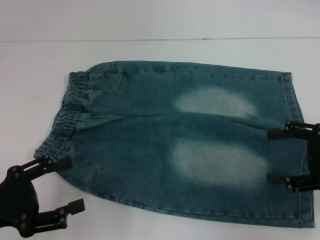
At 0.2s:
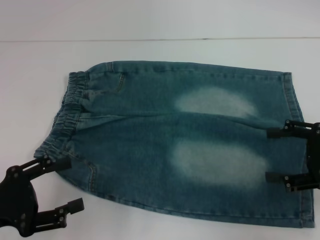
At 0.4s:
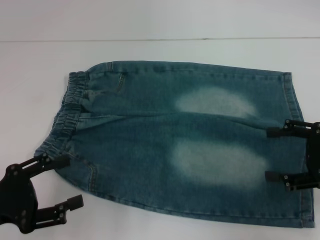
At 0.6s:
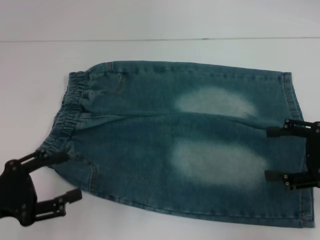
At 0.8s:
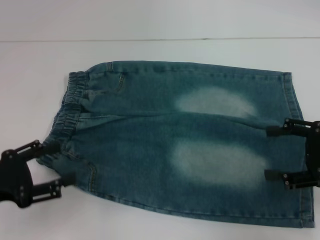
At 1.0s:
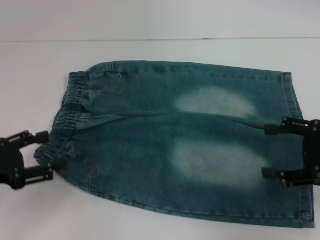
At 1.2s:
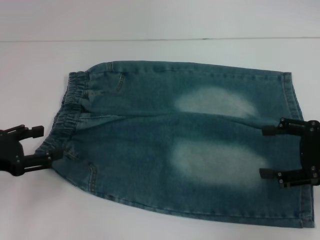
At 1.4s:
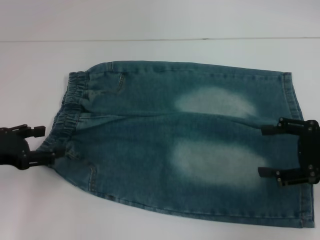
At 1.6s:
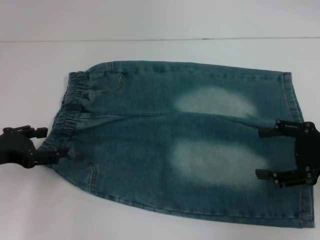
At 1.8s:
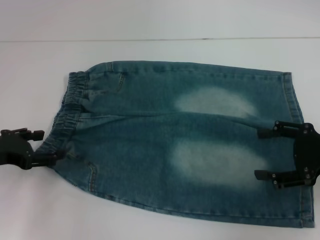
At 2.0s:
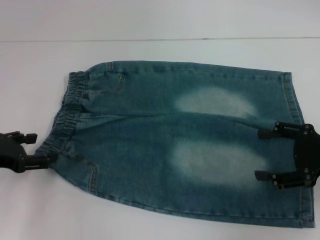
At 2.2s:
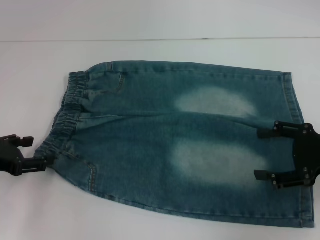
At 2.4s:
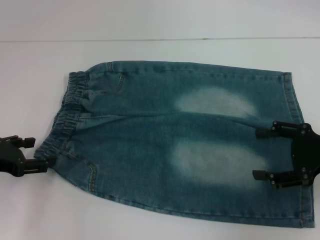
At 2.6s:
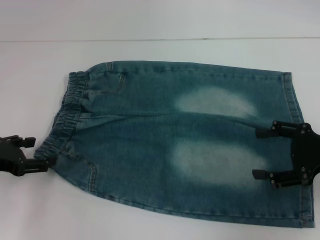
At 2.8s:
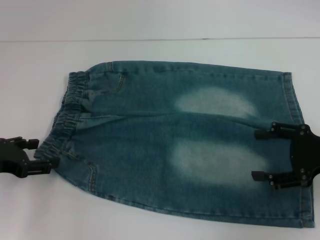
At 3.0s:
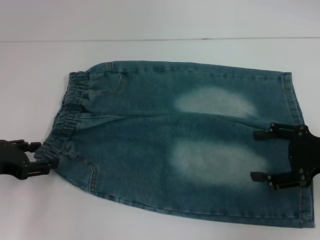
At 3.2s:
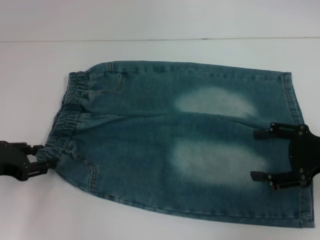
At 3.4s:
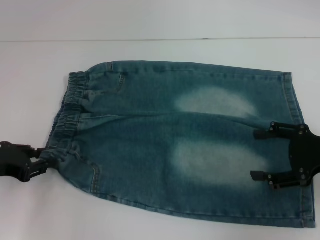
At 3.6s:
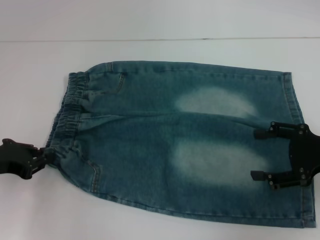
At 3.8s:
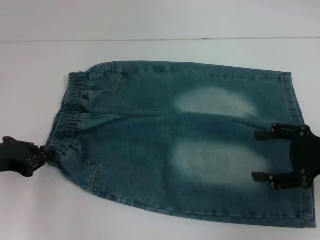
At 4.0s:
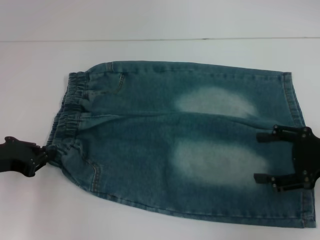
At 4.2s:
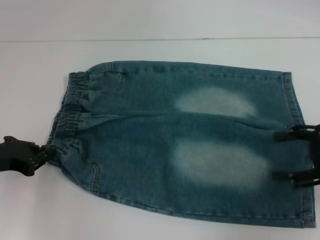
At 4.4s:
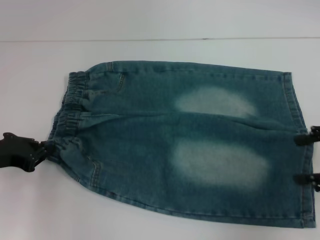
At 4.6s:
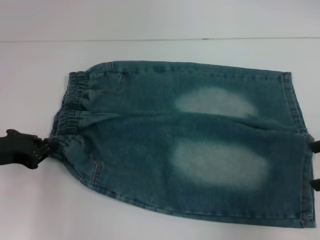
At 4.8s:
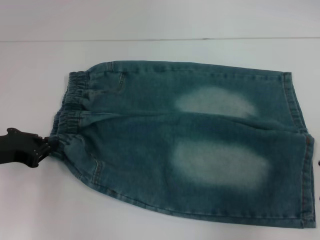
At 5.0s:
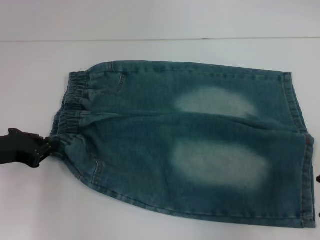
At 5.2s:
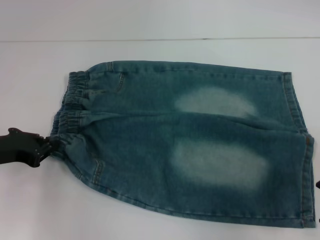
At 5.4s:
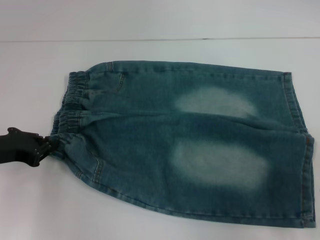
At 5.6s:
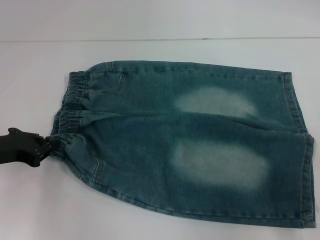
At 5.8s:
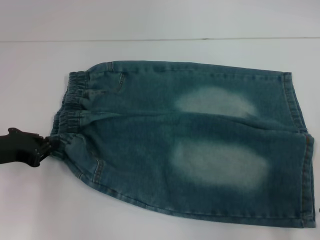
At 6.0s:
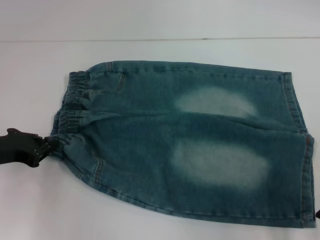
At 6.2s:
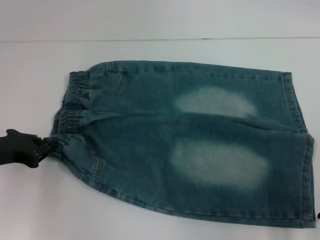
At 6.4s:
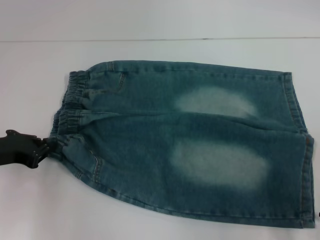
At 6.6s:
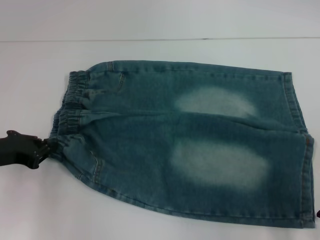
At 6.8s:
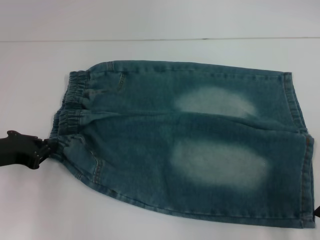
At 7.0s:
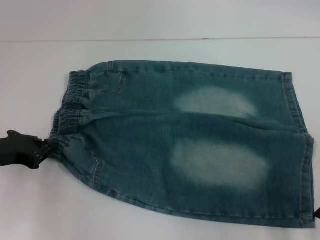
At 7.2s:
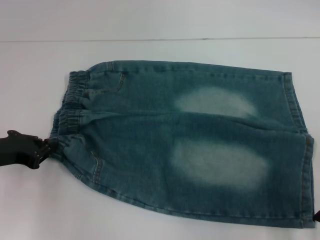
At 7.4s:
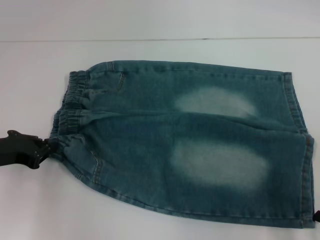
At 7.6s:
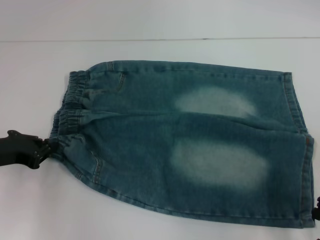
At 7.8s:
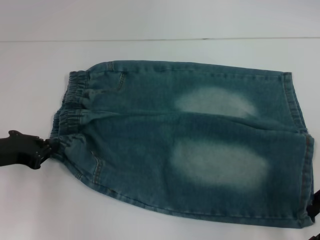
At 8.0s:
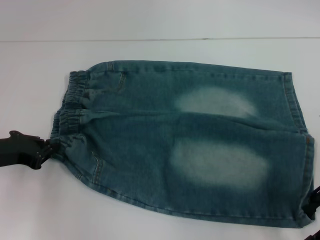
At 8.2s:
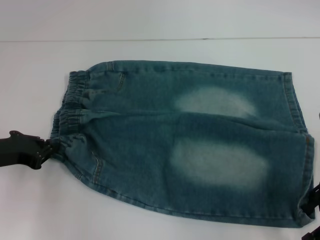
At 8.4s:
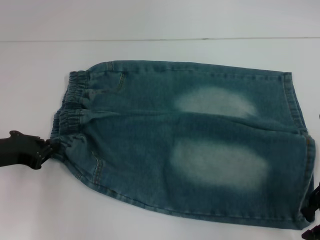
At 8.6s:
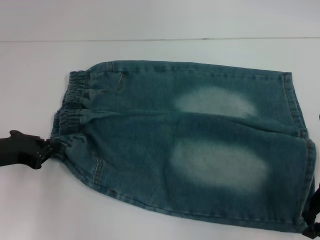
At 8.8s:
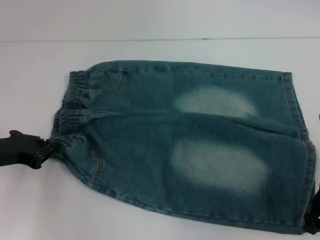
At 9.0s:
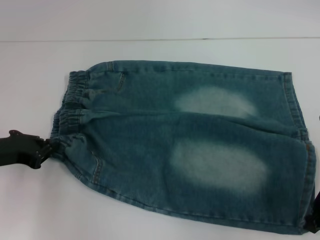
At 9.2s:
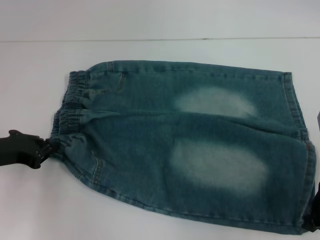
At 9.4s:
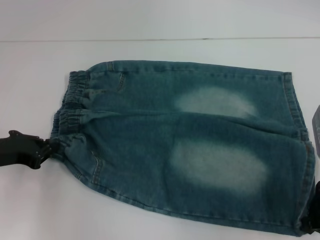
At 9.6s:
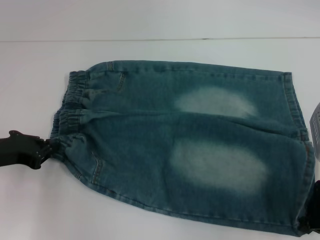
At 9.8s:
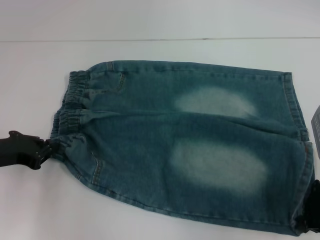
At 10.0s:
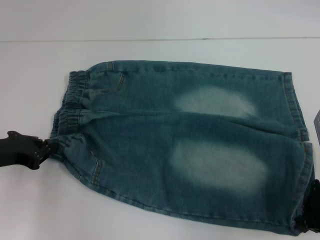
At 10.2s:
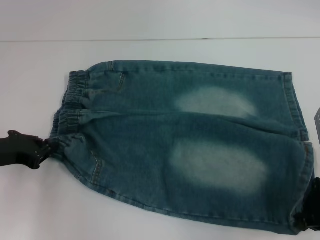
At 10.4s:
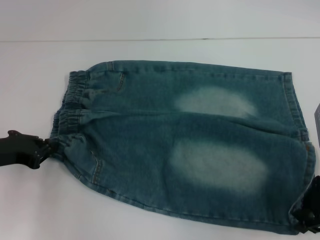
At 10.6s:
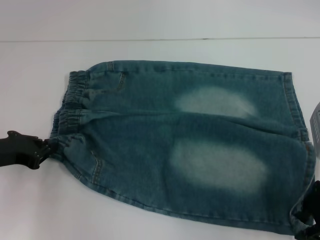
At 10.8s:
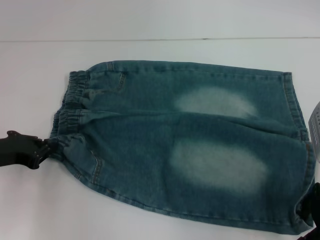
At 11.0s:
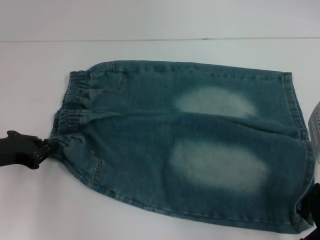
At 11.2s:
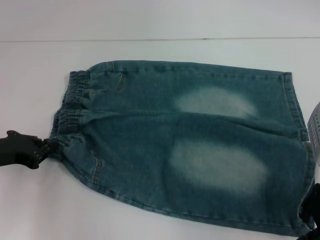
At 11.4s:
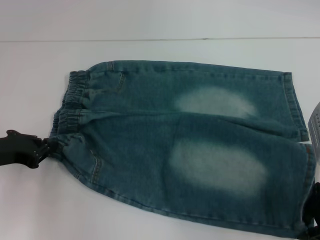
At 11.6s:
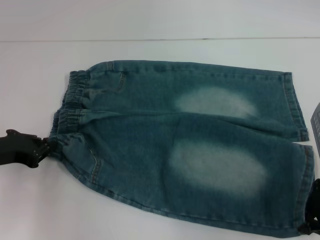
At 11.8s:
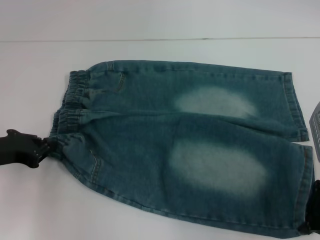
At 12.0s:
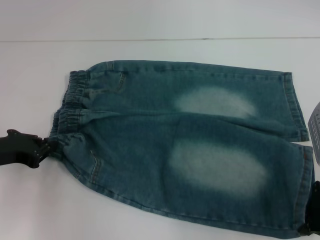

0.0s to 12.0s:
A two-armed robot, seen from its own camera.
Step, 0.0s to 4.4s: Grab the lower left pant leg with your left hand.
Step, 4.6s to 11.8s: Hold the lower right waistband with your right hand.
0.0s to 1.6s: The left gripper moves forward, some 10 cm.
1.6s to 3.0s: The grippers move only a little.
3.0s to 4.4s: The right gripper shifts by roughly 5 cm; the left gripper closes its fingers.
4.4s to 6.0s: The right gripper heads to the left, covering about 5 cm.
6.0s to 7.6s: Neither gripper changes place.
7.6s to 9.0s: The right gripper closes.
9.0s to 10.4s: Both grippers stay put.
10.4s to 12.0s: The right gripper opens and closes again.

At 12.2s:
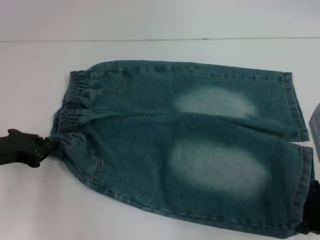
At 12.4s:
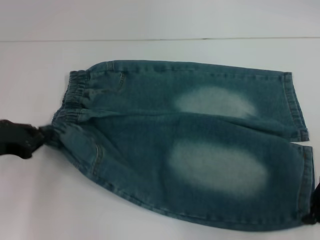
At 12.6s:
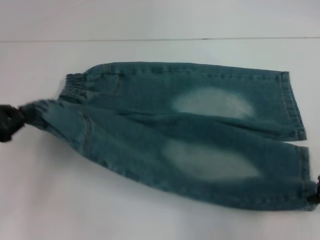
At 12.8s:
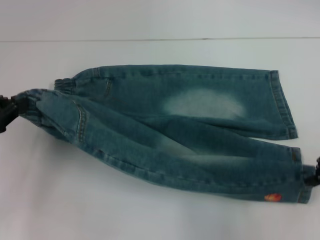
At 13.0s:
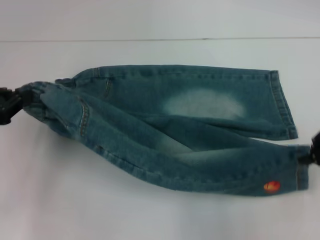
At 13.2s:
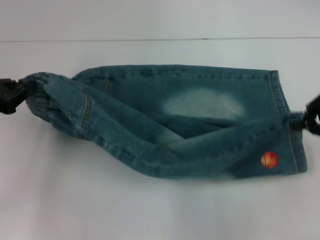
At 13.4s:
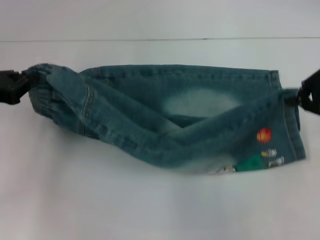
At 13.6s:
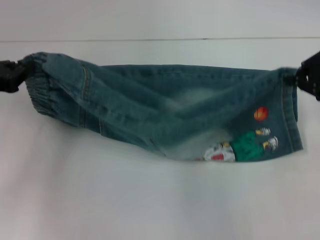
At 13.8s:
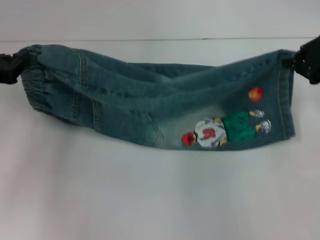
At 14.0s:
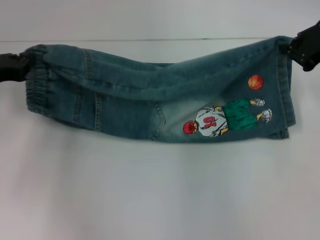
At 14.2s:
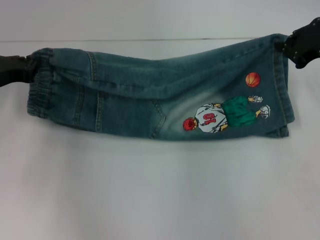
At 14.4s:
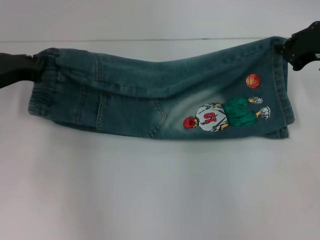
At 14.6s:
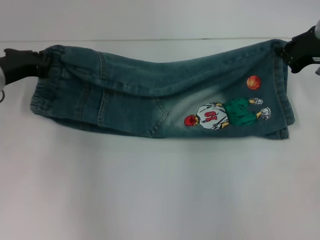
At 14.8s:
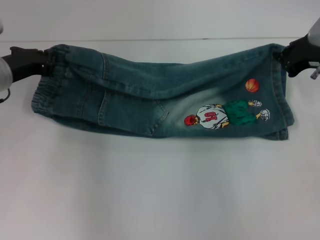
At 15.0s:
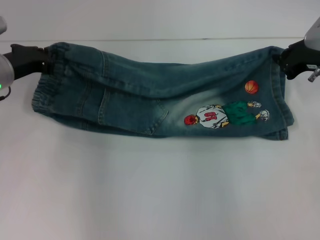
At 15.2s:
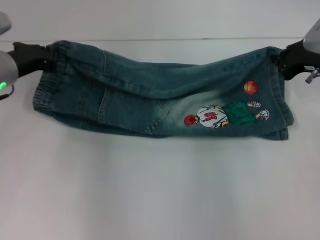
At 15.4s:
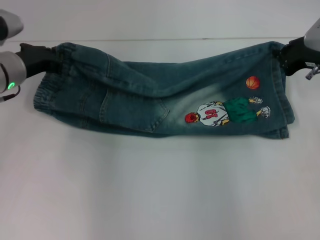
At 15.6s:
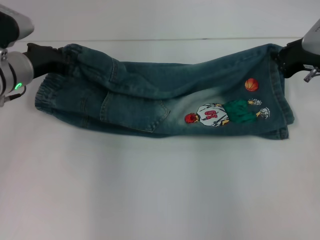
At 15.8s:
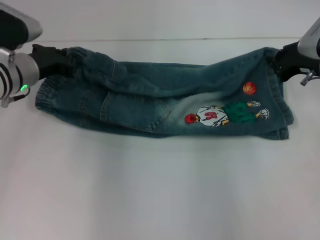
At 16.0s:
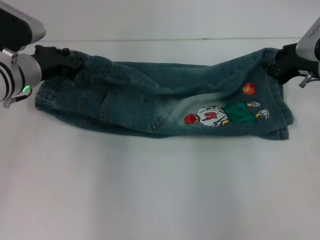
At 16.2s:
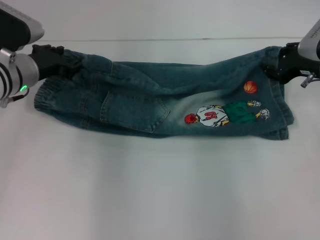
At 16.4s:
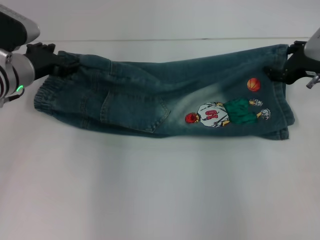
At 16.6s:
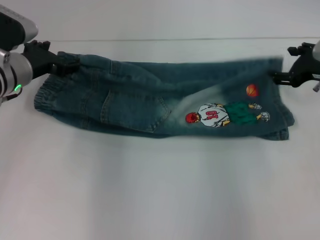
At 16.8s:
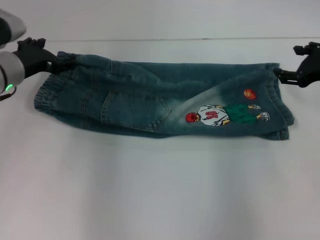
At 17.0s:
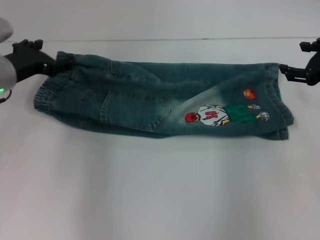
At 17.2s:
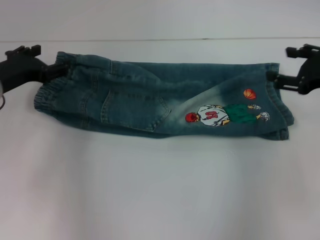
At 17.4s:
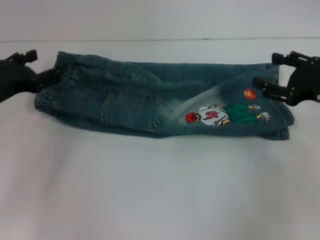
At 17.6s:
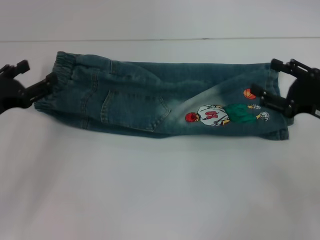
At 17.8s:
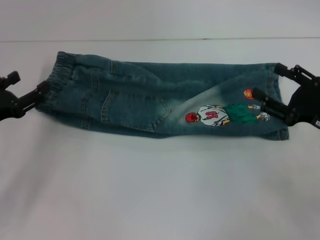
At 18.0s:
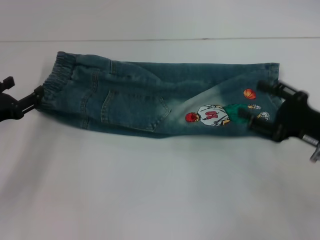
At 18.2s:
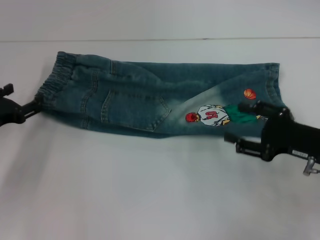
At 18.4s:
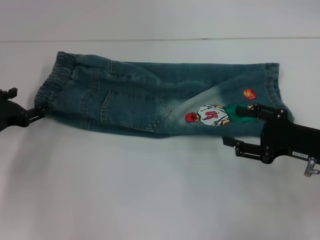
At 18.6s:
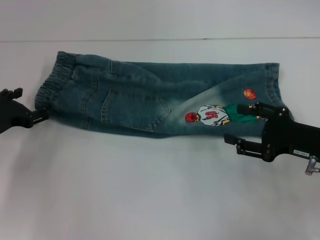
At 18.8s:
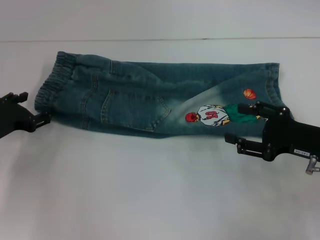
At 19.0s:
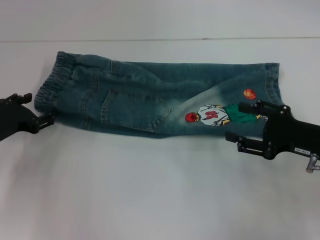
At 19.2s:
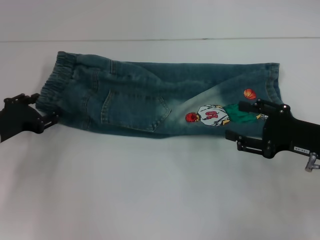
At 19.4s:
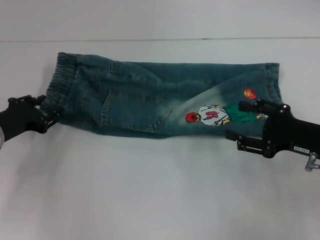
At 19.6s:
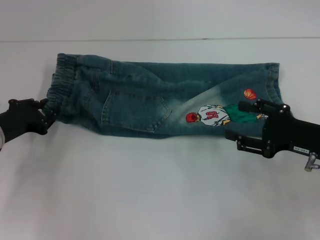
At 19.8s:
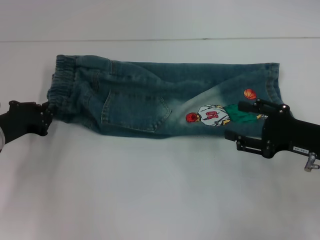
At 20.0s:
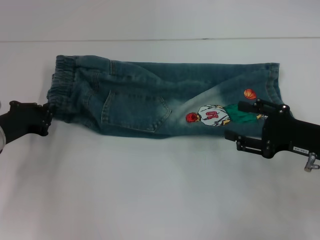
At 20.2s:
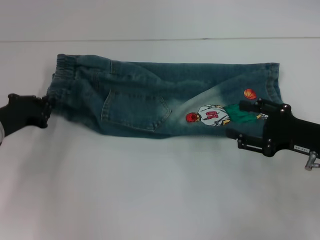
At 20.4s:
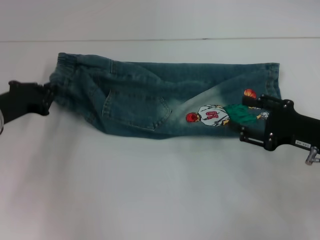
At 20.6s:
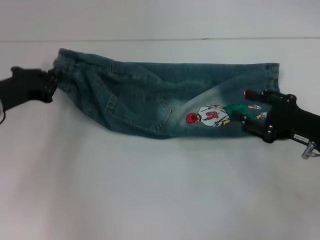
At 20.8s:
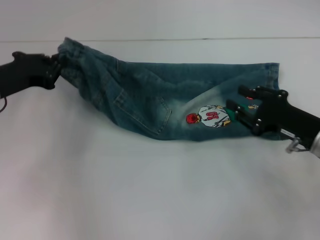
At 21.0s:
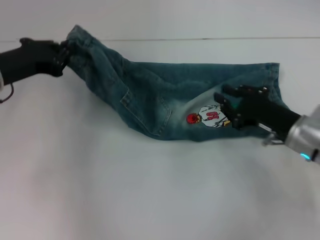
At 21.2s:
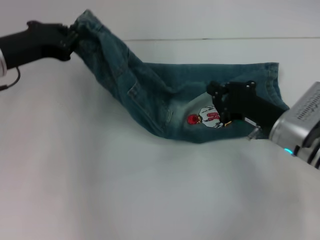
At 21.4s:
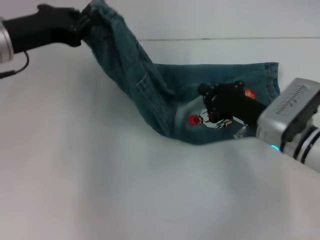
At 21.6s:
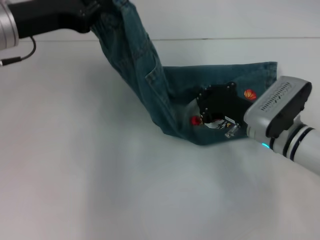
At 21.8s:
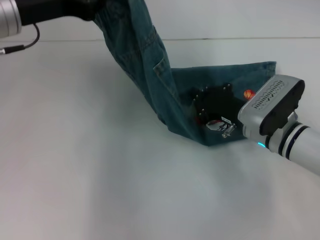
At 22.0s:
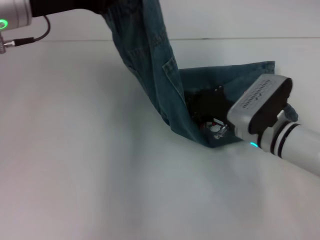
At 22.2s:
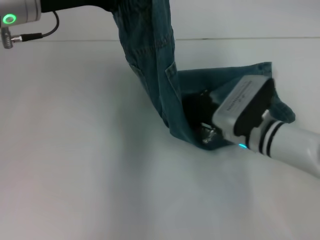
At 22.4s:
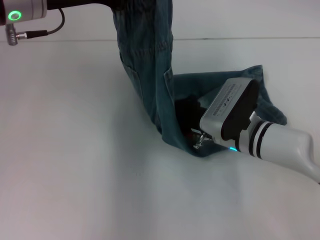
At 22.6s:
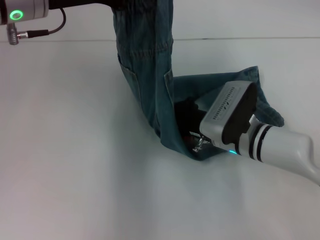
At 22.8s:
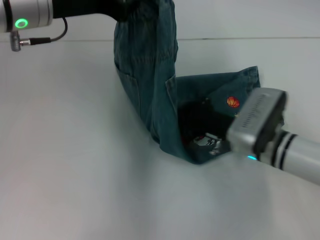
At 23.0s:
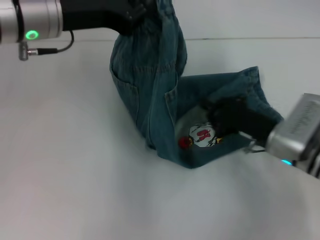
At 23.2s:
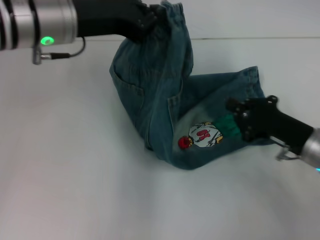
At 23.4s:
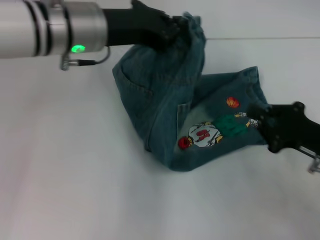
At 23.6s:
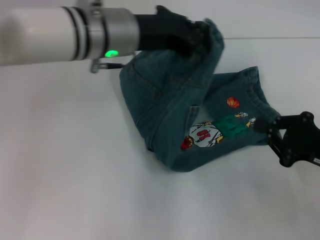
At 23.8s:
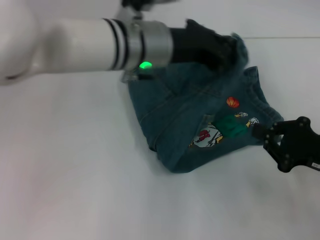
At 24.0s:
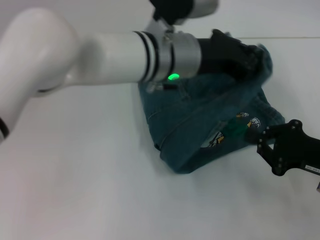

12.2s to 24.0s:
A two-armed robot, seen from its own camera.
Step, 12.2s to 16.6s: Fold upward with your right hand.
Step, 16.8s to 20.0s: Grab the waistband with your right hand.
Step, 20.2s to 22.6s: Press the middle of the pants with your left hand.
12.2s to 13.6s: The left gripper is displaced upward by about 5 cm. Meanwhile the right gripper goes some 10 cm upward and forward.
13.6s to 15.2s: The left gripper heads forward and to the right, covering about 10 cm. The right gripper shifts some 10 cm downward and forward.
15.2s to 16.6s: The right gripper opens up; the left gripper opens.
16.6s to 18.2s: The right gripper travels backward and downward by about 15 cm; the left gripper heads backward, to the left and downward, covering roughly 15 cm.
18.2s to 19.6s: The left gripper closes its fingers.
19.6s to 21.0s: The left gripper moves upward, some 10 cm, and closes its fingers. The right gripper changes place by approximately 5 cm.
21.0s to 22.6s: The right gripper moves to the left, some 10 cm, and closes its fingers. Meanwhile the left gripper heads upward and to the right, covering roughly 15 cm.
22.6s to 24.0s: The left gripper is displaced to the right and downward by approximately 20 cm; the right gripper goes approximately 20 cm to the right and backward.
